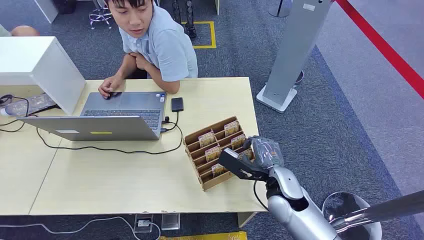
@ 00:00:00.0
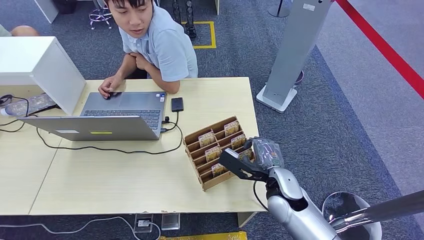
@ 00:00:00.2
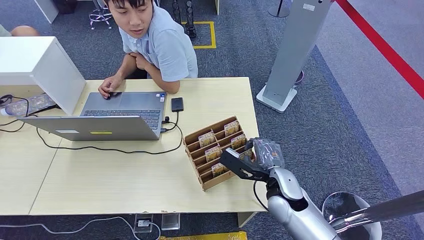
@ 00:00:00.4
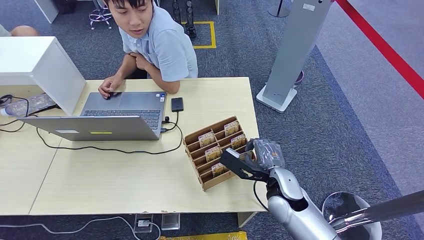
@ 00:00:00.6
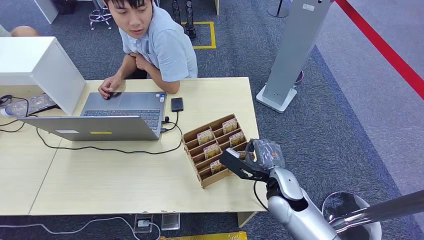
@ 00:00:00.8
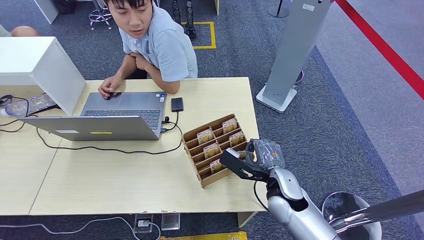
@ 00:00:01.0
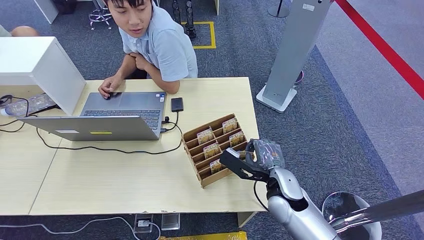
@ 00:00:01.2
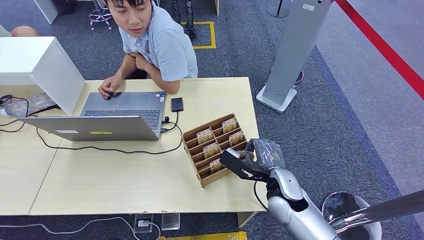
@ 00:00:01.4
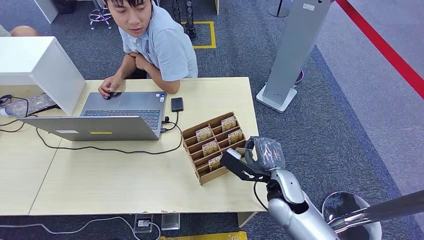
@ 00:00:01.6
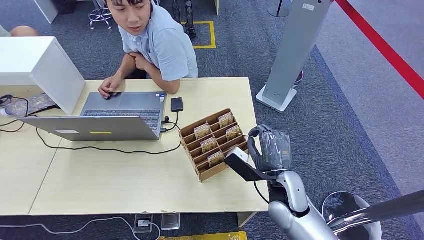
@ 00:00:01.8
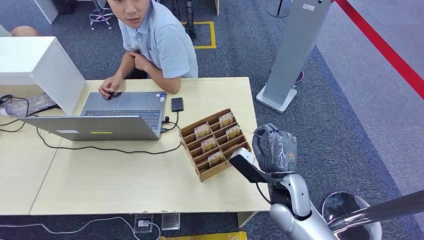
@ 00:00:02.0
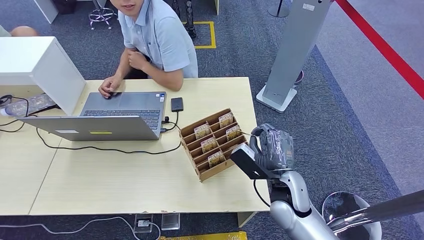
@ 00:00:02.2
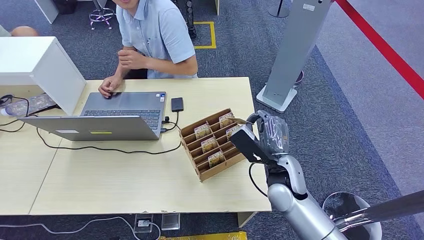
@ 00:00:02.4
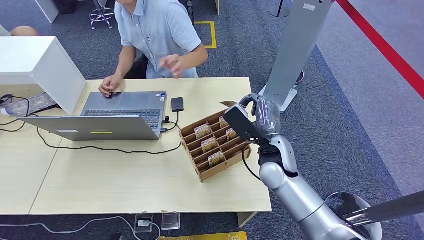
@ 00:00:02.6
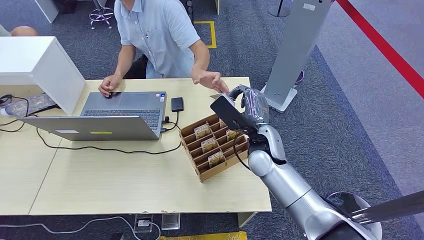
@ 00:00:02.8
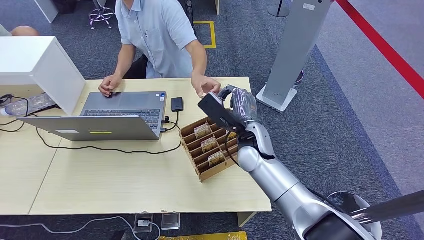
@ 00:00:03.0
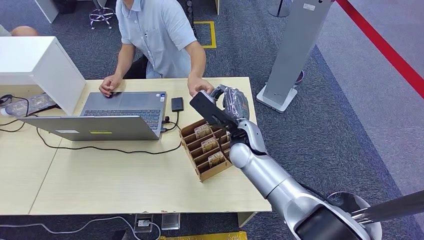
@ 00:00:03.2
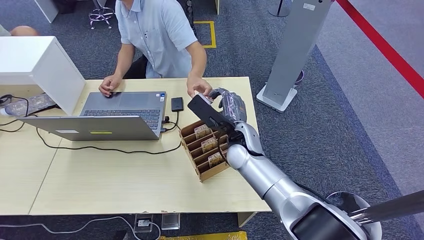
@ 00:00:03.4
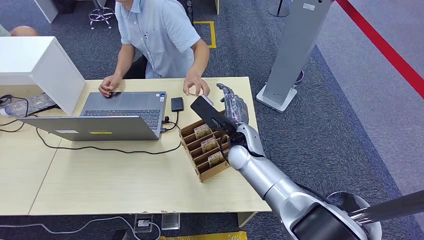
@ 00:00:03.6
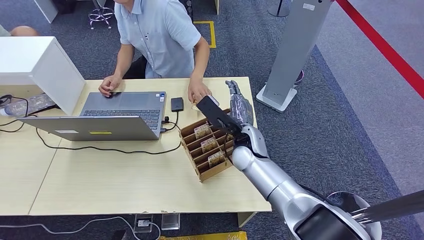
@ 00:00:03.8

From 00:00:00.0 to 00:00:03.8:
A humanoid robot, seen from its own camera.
Step, from 00:00:00.0 to 00:00:01.6: Pick up the key card from the card box.
Step, from 00:00:02.8 to 00:00:03.8: Hand the key card to the target.
From 00:00:01.2 to 00:00:02.6: The right hand moves upward and forward, some 10 cm.
From 00:00:02.6 to 00:00:03.8: The right hand shifts some 5 cm to the left.
